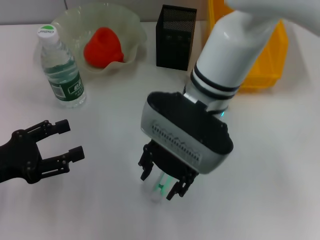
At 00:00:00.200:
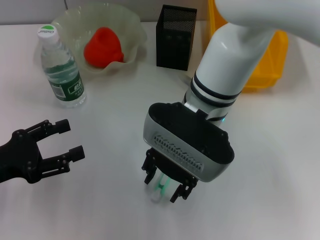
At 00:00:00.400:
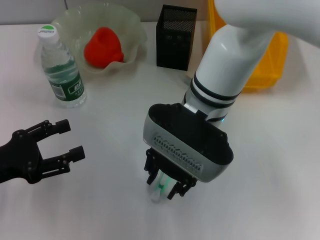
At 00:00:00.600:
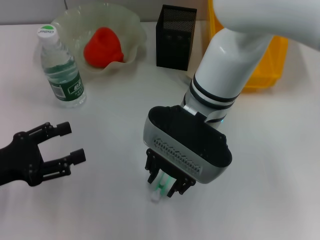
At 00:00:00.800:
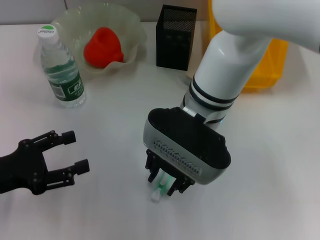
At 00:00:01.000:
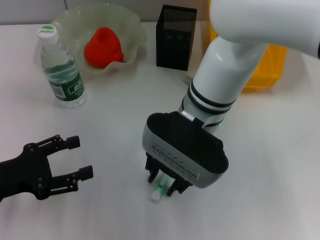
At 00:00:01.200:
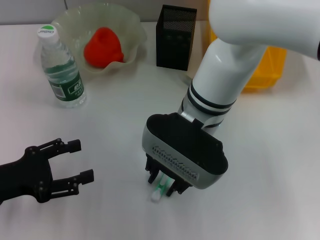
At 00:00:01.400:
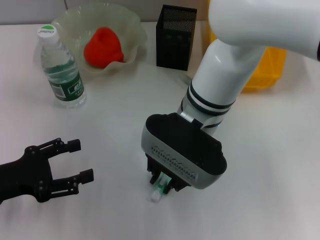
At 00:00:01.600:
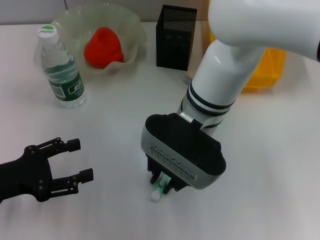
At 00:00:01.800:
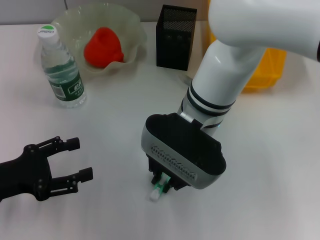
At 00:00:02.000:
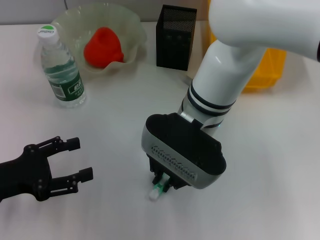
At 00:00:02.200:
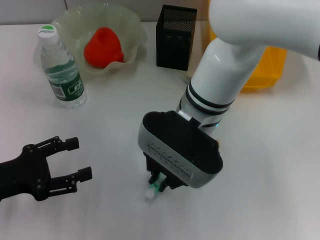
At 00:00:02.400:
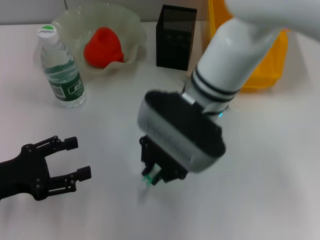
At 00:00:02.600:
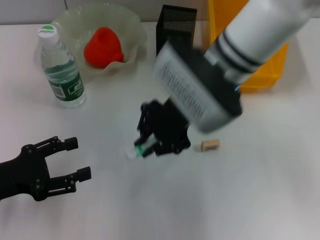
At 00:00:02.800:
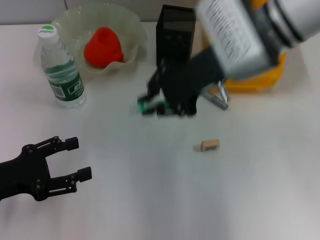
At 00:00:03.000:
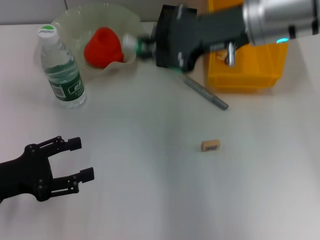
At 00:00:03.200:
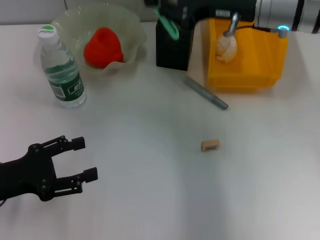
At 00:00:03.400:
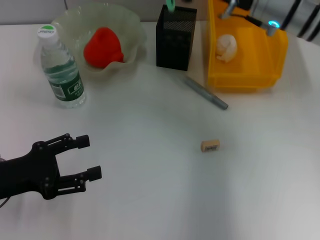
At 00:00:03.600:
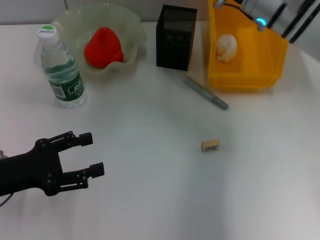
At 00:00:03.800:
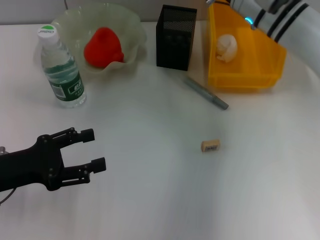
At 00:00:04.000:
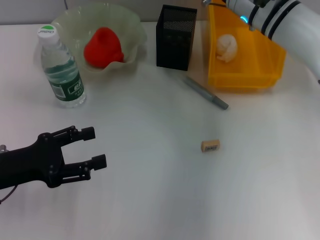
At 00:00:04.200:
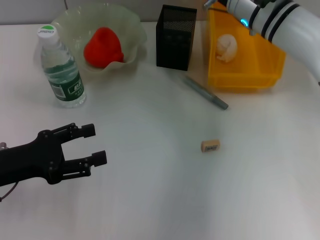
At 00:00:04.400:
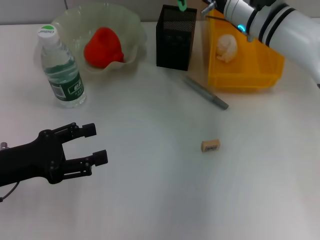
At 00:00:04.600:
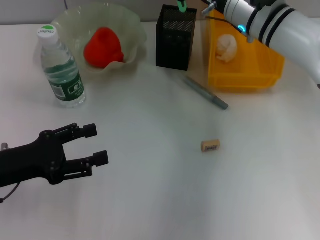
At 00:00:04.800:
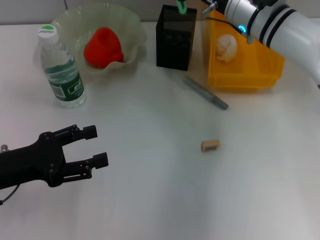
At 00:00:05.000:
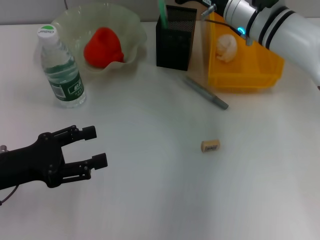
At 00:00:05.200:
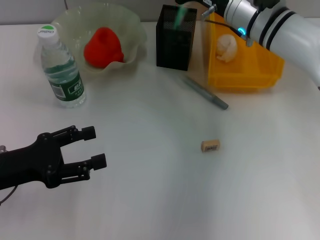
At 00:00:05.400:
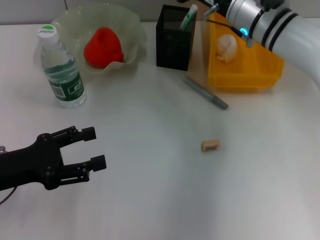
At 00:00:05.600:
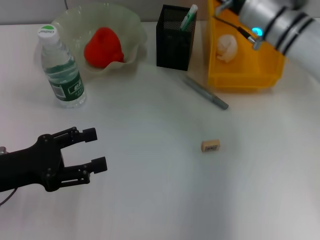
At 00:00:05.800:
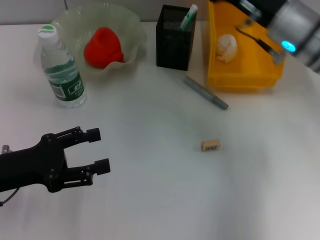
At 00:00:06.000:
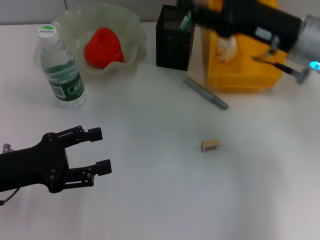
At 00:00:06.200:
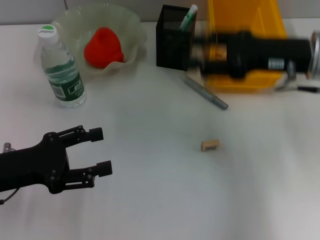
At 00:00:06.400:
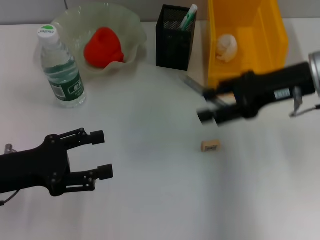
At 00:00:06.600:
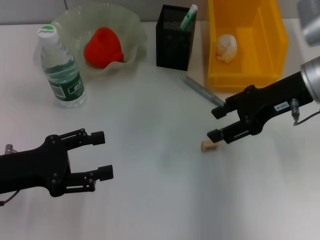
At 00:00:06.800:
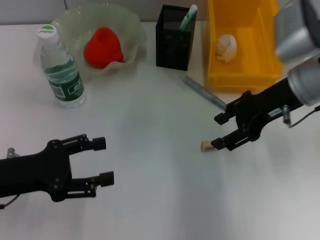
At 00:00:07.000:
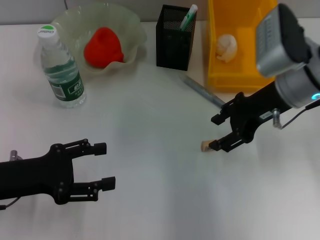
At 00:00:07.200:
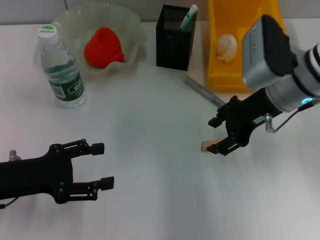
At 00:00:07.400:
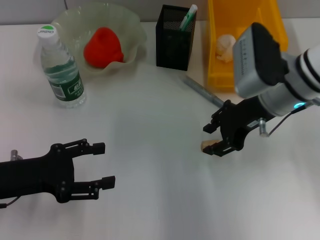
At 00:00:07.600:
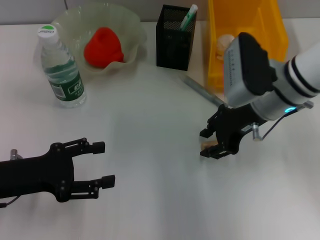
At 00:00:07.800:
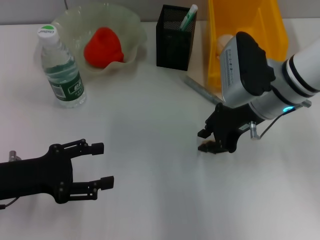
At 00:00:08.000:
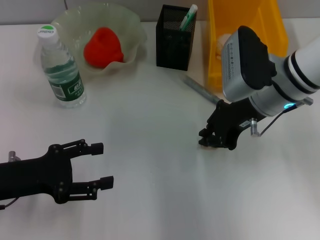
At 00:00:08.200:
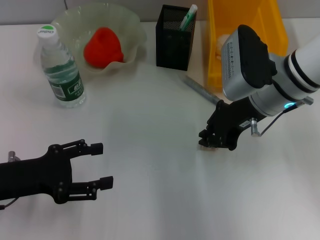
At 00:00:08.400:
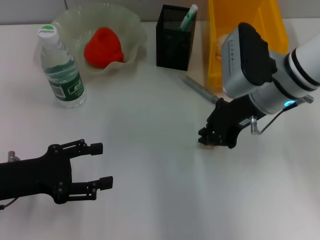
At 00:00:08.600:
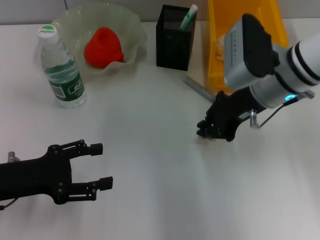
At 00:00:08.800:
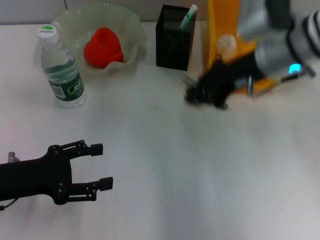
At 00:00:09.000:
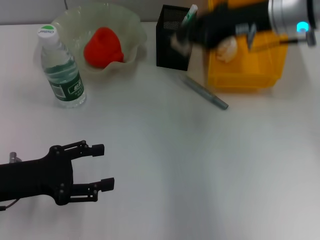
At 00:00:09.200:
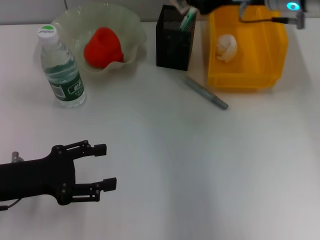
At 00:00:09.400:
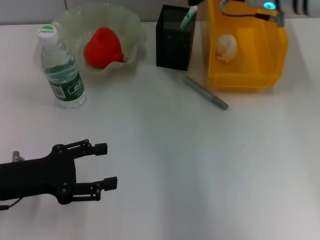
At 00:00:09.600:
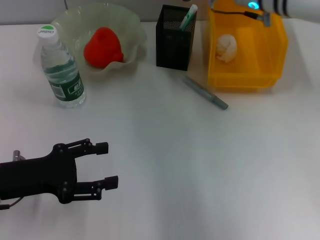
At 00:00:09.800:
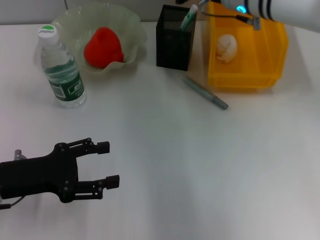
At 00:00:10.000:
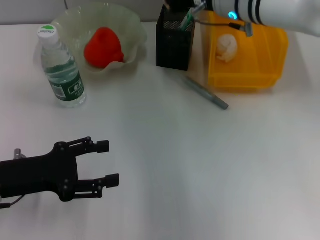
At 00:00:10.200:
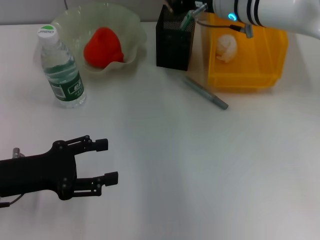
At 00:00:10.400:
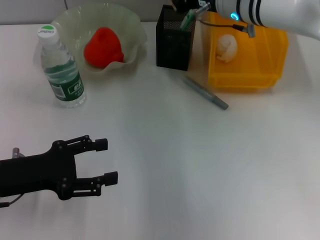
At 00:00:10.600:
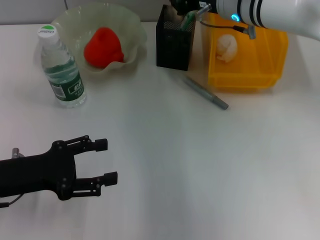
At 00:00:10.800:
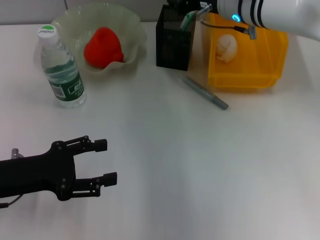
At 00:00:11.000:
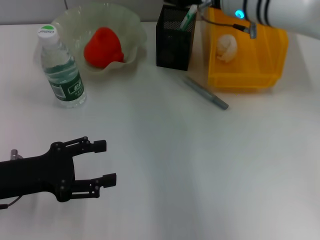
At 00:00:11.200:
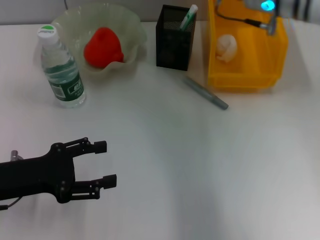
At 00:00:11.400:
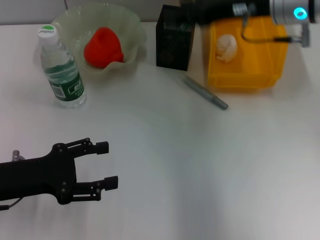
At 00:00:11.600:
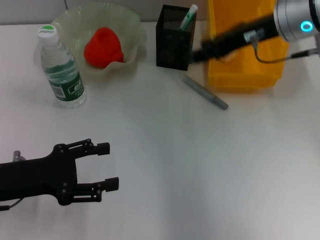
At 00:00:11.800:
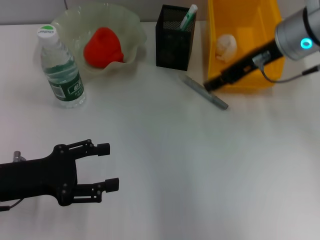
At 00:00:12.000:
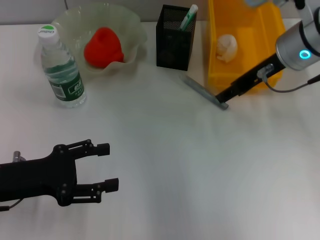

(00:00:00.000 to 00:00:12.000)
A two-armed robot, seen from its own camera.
Step, 00:00:00.000 - 00:00:05.400: Place the blue utility knife into the pen holder with the right hand.
Step, 00:00:05.800 - 00:00:08.200: Grab the eraser with the right hand.
Step, 00:00:08.400 - 00:00:11.000: Put the eraser into the pen holder with the right hand.
00:00:00.000 - 00:00:01.600: The right gripper closes up.
00:00:01.600 - 00:00:03.000: The right gripper moves to the right, upward and forward, some 15 cm.
00:00:03.000 - 00:00:04.400: The right gripper shifts approximately 10 cm downward and forward.
00:00:04.400 - 00:00:06.000: The right gripper travels backward and to the right by approximately 10 cm, and opens up.
00:00:06.000 - 00:00:07.600: The right gripper changes place by about 5 cm.
00:00:07.600 - 00:00:09.000: The right gripper heads upward, covering about 10 cm, and closes its fingers.
00:00:09.000 - 00:00:10.400: The right gripper shifts some 10 cm to the left, forward and downward.
00:00:10.400 - 00:00:12.000: The right gripper is displaced backward and to the right by some 10 cm, and opens its fingers.

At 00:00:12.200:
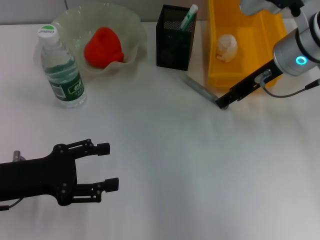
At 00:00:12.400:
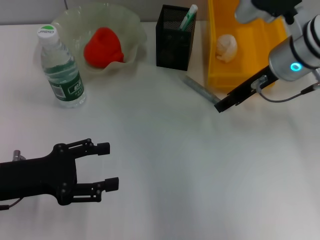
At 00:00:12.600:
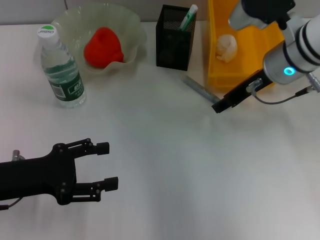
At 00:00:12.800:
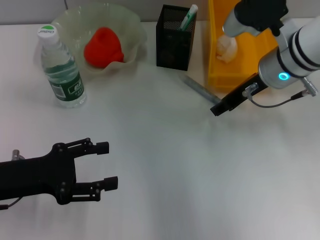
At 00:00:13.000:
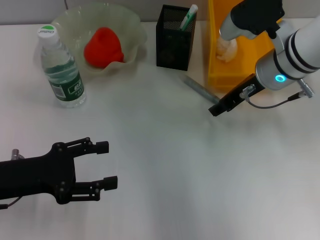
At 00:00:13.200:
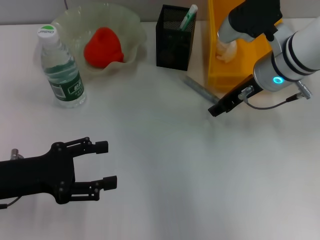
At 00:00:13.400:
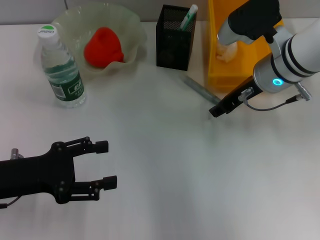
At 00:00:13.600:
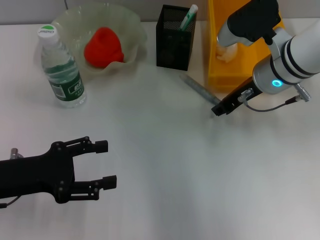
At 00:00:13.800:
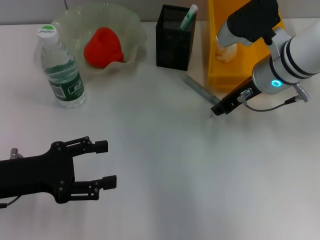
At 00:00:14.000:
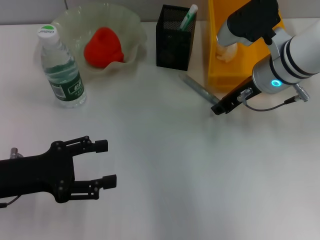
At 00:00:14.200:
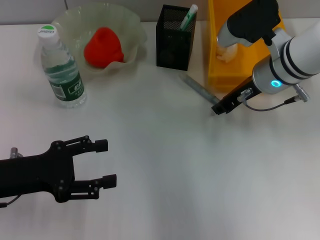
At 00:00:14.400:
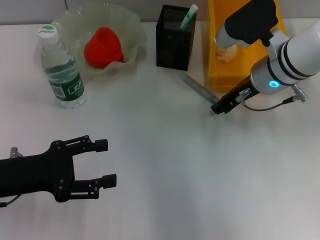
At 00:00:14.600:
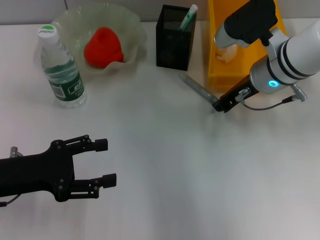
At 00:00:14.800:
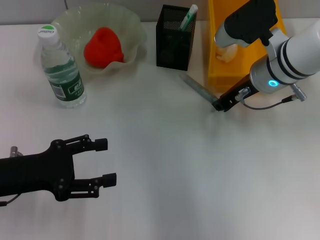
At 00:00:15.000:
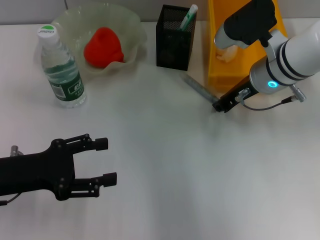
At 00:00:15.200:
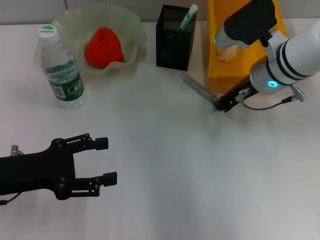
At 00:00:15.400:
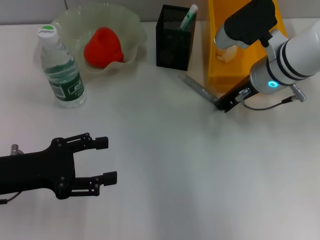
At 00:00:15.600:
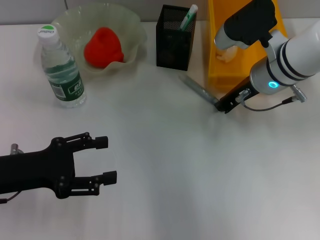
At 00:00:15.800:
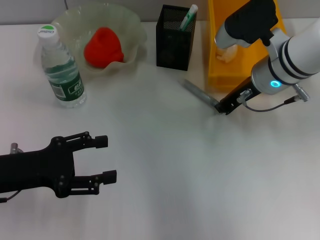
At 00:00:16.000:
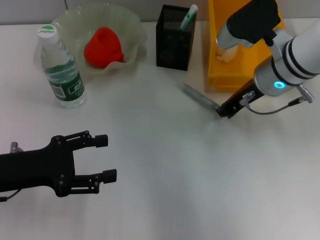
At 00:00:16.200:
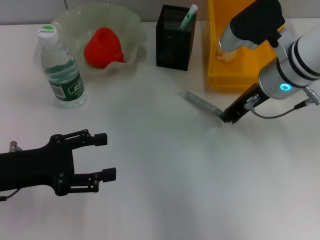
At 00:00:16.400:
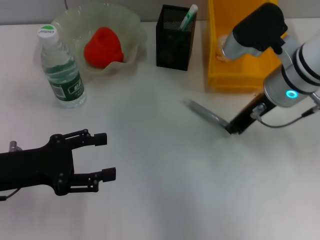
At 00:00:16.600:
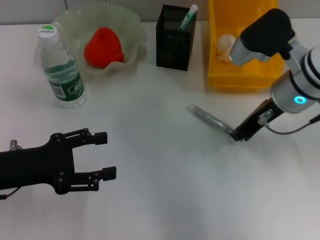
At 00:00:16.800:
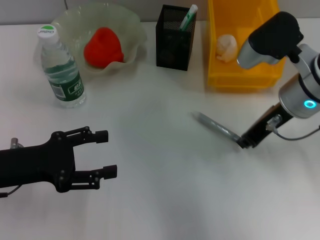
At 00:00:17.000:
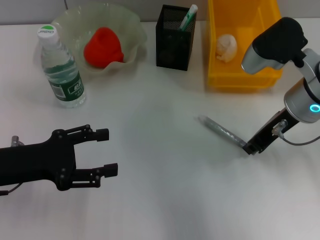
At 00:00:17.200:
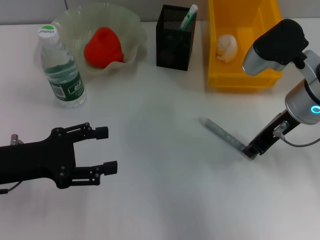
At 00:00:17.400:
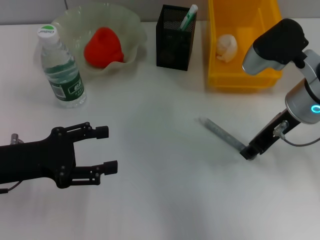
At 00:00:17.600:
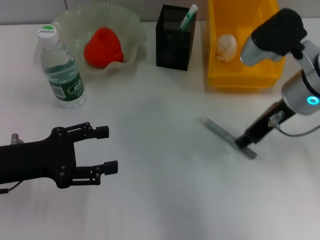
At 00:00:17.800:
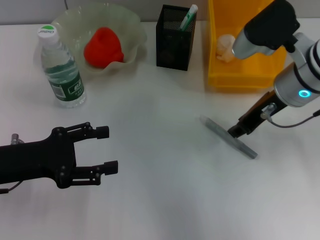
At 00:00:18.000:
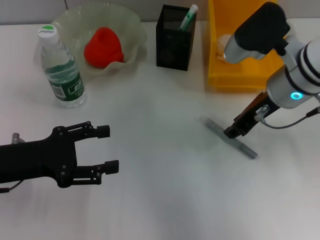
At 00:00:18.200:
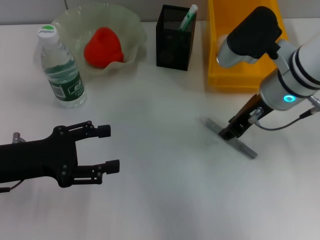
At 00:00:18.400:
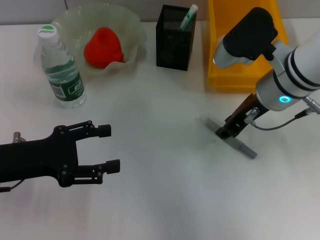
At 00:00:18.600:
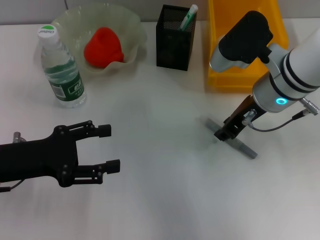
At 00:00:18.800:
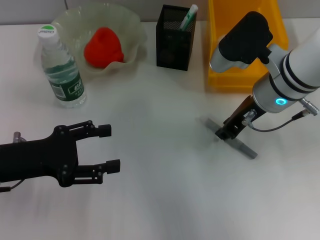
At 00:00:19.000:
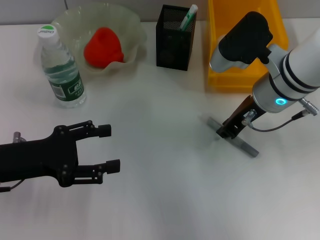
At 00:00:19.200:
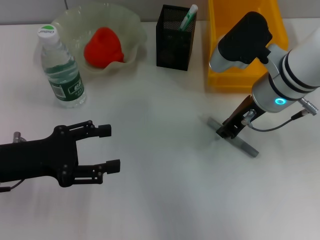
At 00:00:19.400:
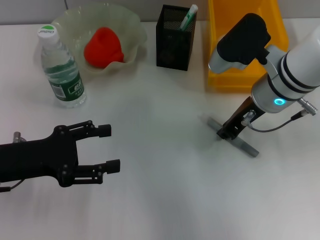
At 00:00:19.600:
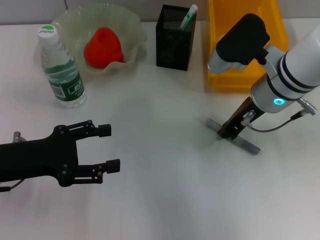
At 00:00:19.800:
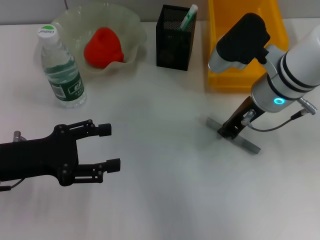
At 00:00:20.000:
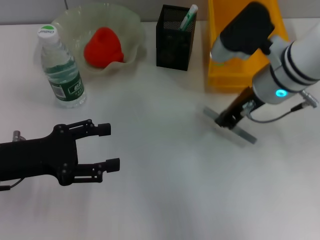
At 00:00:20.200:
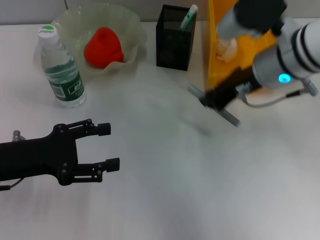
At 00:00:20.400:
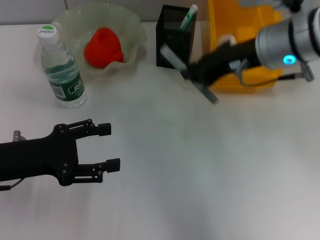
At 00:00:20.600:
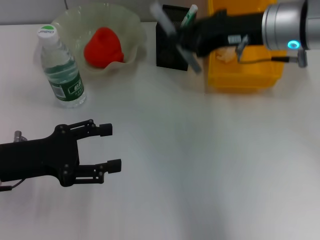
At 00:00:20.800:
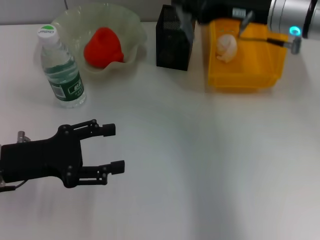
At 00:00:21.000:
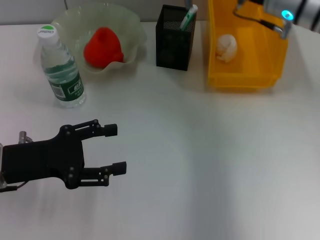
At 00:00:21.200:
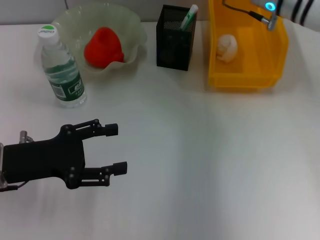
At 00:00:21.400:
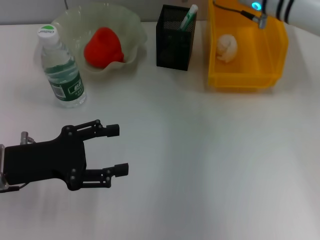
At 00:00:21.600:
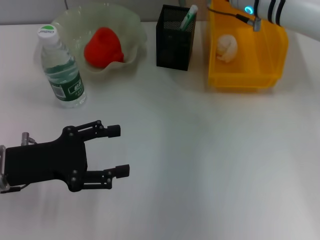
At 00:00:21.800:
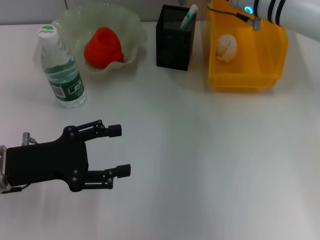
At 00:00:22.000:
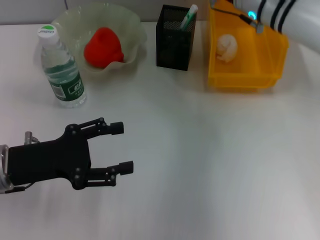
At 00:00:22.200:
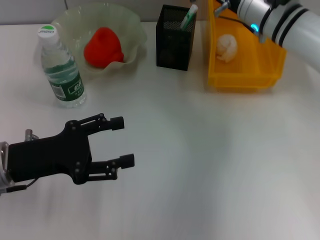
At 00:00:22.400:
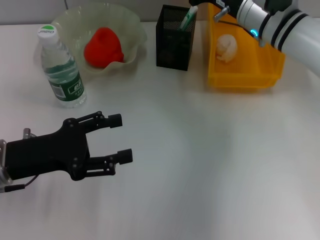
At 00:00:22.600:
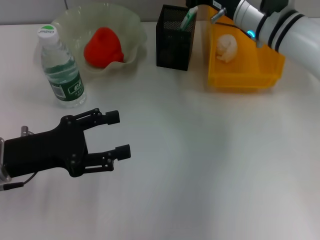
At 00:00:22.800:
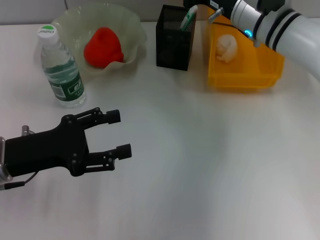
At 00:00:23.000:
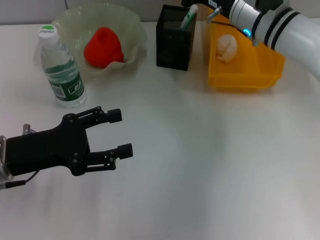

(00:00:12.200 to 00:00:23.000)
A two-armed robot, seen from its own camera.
Step, 00:00:12.200 - 00:00:19.600: Grab the gray glue with the right hand.
00:00:12.200 - 00:00:13.800: The grippers move only a little.
00:00:13.800 - 00:00:15.200: Neither gripper changes place.
00:00:15.200 - 00:00:16.800: The right gripper ends up about 5 cm from where it was.
00:00:16.800 - 00:00:18.400: The right gripper opens up.
00:00:18.400 - 00:00:20.000: The right gripper closes up.
00:00:20.000 - 00:00:21.400: The right gripper goes approximately 10 cm forward.
00:00:21.400 - 00:00:23.000: The grippers stay close to where they were, moving slightly.
